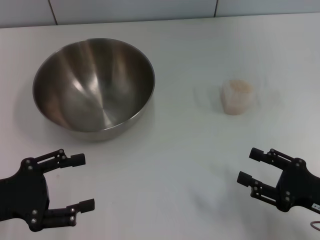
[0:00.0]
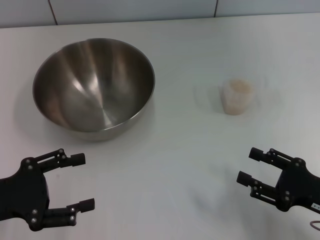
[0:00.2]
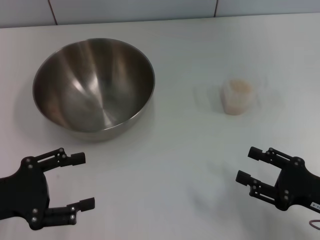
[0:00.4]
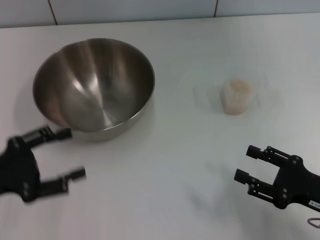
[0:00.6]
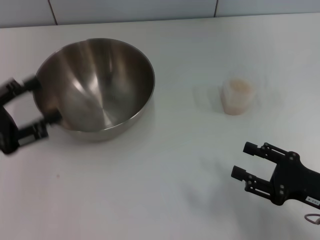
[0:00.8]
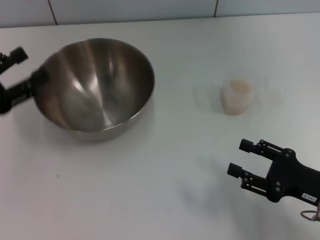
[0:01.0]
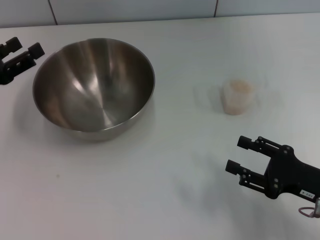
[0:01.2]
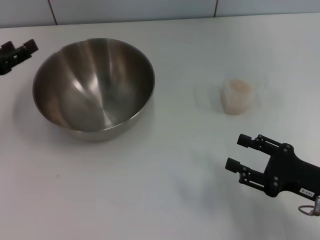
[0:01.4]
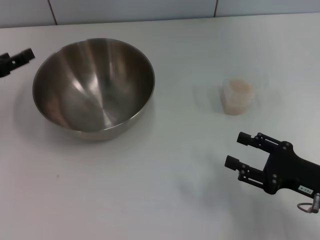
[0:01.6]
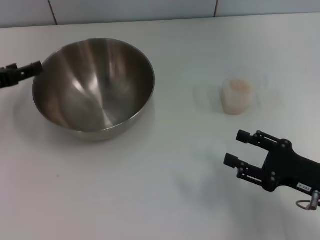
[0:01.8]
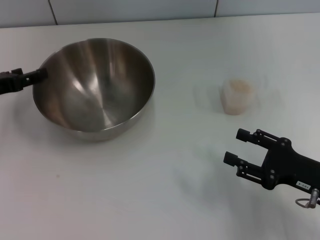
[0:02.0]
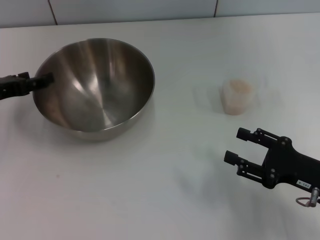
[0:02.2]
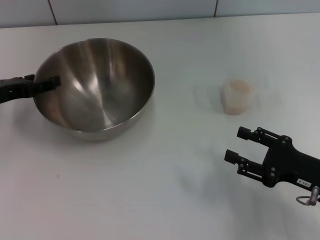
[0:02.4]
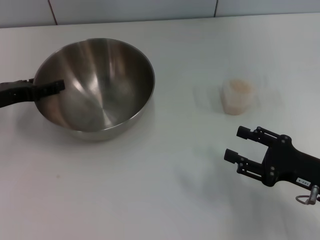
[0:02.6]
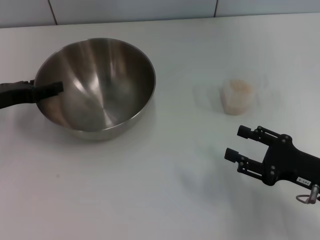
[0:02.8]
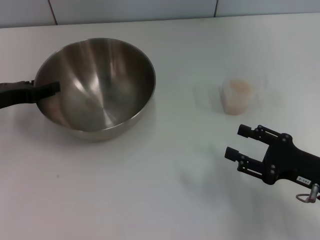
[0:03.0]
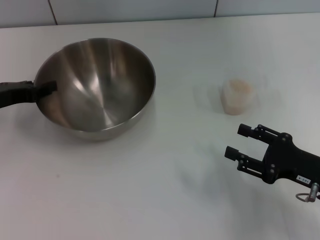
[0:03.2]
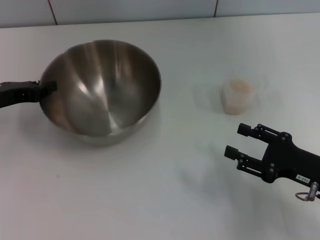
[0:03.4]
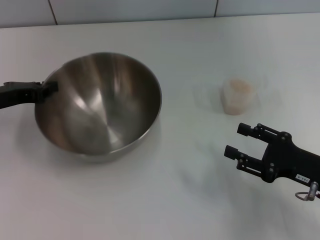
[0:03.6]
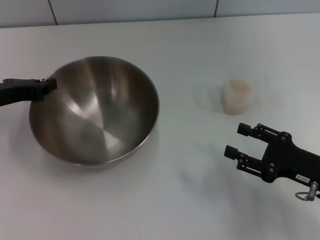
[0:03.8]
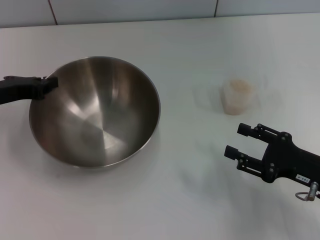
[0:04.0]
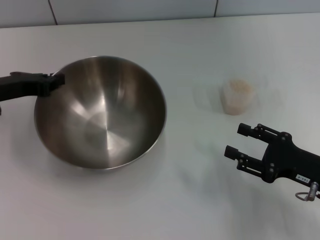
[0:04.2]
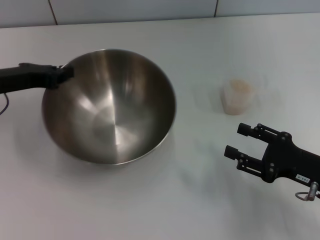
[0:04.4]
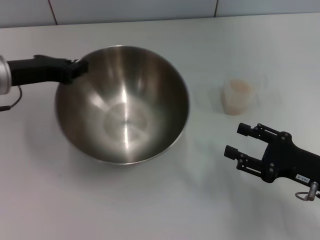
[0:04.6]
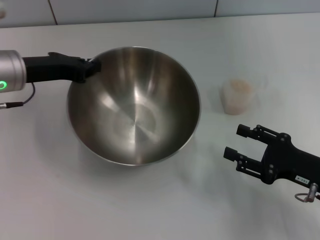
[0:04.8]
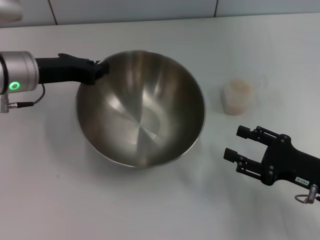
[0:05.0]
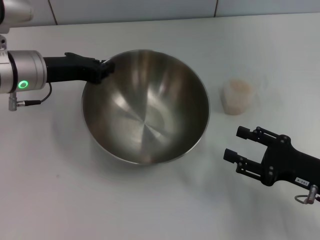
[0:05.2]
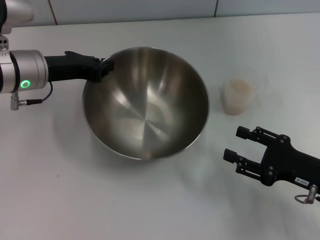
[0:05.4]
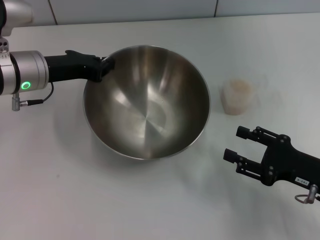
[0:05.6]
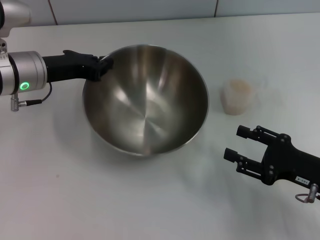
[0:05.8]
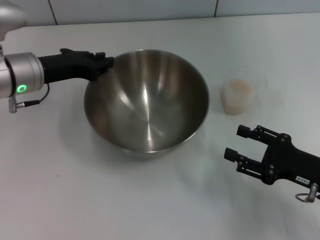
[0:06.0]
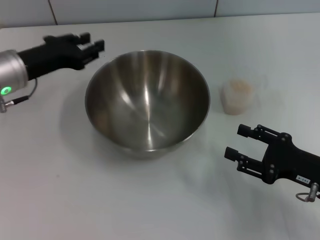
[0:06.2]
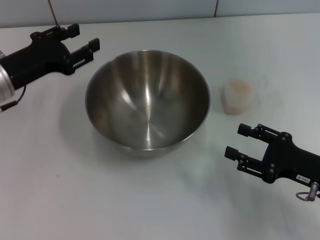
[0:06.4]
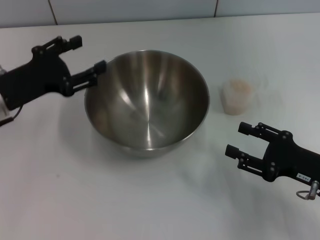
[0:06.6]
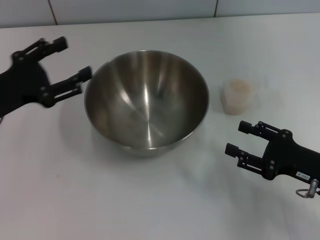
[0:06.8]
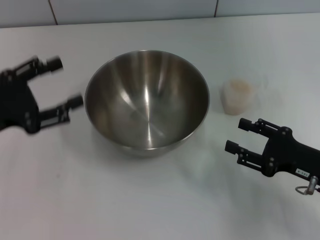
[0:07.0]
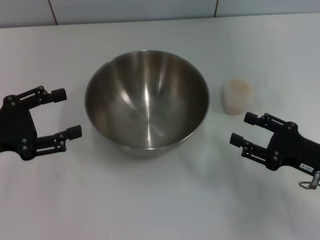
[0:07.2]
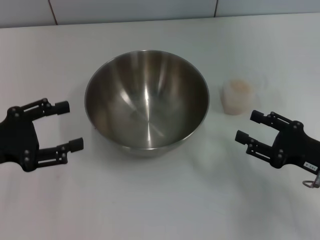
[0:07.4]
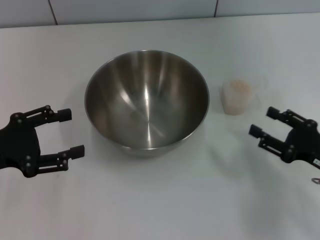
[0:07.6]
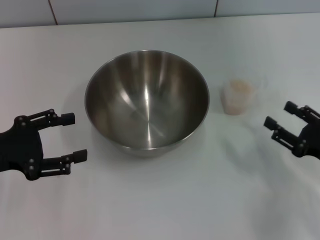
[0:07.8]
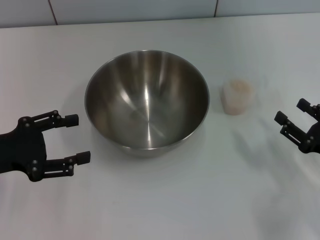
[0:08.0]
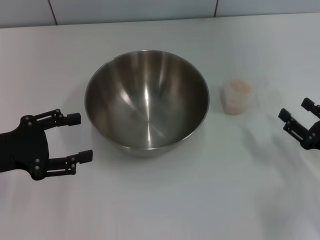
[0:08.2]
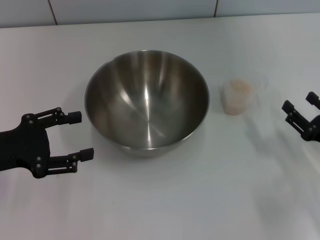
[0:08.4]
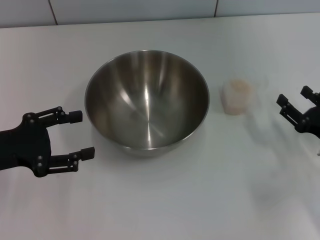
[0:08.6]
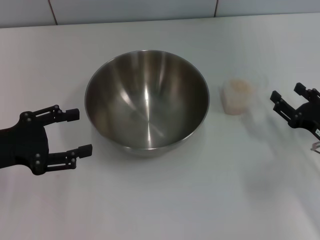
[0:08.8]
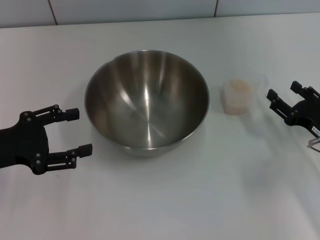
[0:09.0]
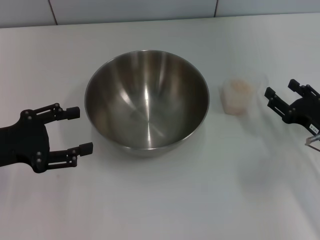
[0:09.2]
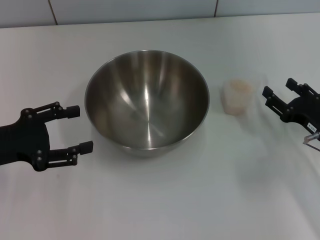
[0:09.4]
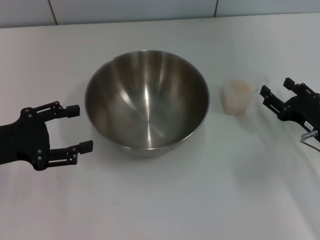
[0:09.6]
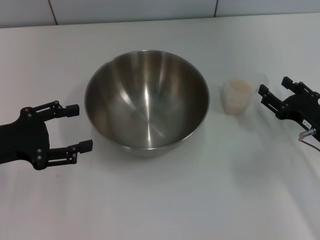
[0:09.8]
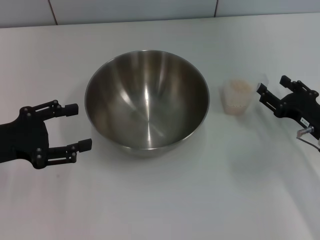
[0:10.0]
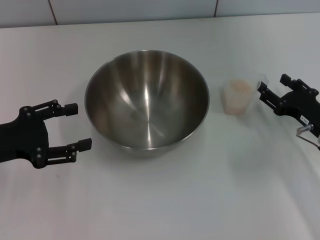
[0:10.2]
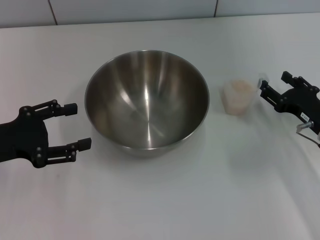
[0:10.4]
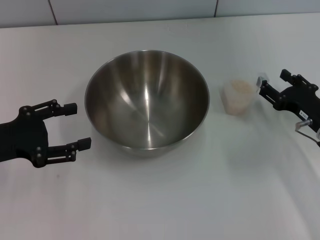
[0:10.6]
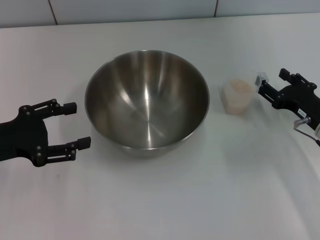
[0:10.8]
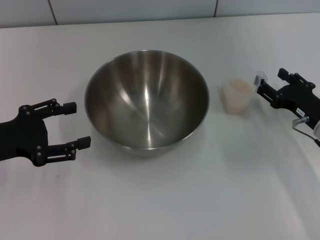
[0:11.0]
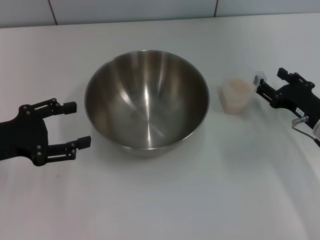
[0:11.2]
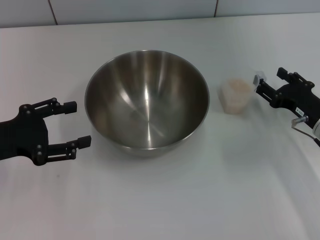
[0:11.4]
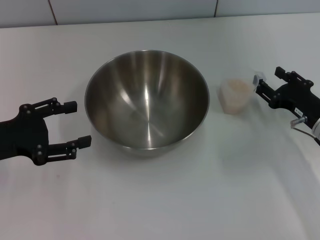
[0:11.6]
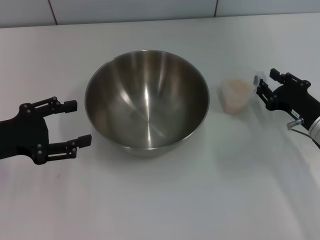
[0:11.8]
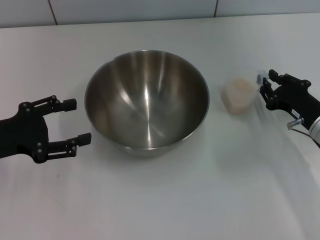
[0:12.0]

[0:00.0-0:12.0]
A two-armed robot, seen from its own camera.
Task of the whole recording: Place the bowl in the middle of the table with one hand and pour the rice from the grain cup into it with the other hand.
Step, 0:00.0 to 0:04.2: Pick up the bowl with the left gripper.
Step, 0:04.4 to 0:06.0: Place the bowl in the center of view with the left gripper.
0:00.0 to 0:01.6: The left gripper shifts about 15 cm forward.
0:01.6 to 0:03.0: The grippers stay close to where they were, moving slightly.
0:03.0 to 0:04.4: The left gripper closes.
0:04.4 to 0:06.0: The left gripper travels to the right by some 5 cm.
0:06.0 to 0:07.6: The left gripper shifts approximately 15 cm backward and to the left, and opens its fingers.
0:09.0 to 0:12.0: There are only small adjustments of the grippers.

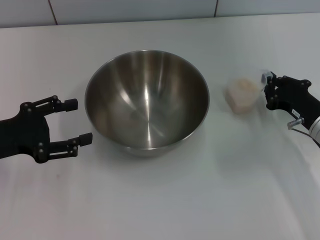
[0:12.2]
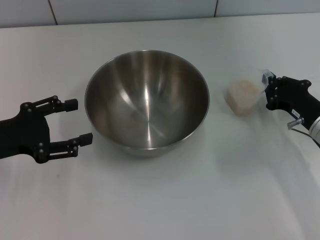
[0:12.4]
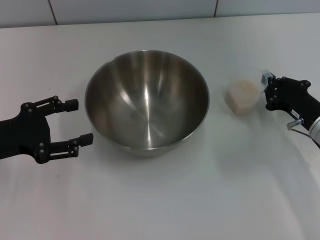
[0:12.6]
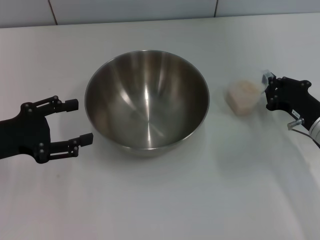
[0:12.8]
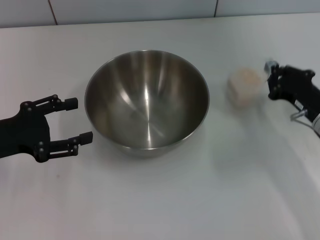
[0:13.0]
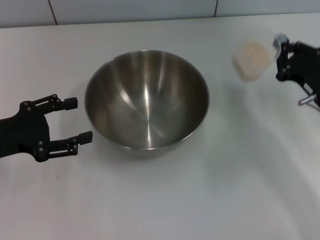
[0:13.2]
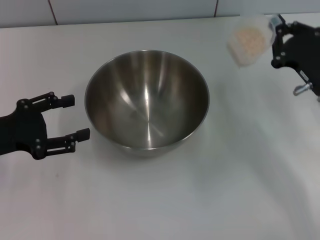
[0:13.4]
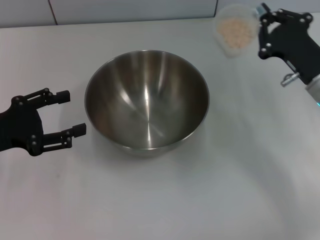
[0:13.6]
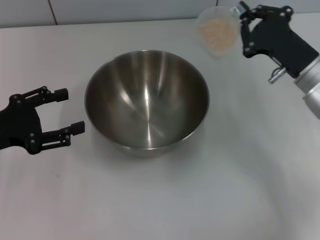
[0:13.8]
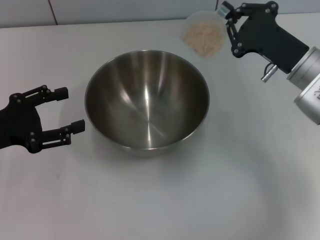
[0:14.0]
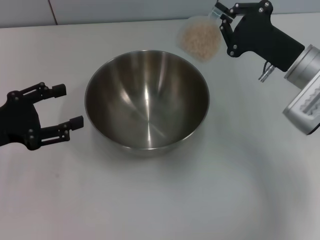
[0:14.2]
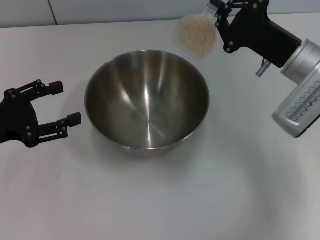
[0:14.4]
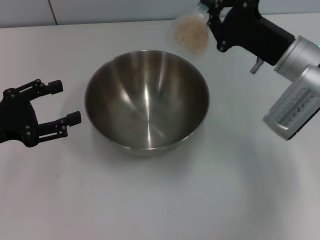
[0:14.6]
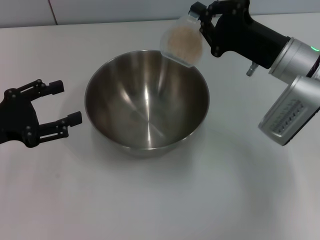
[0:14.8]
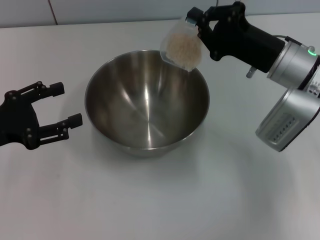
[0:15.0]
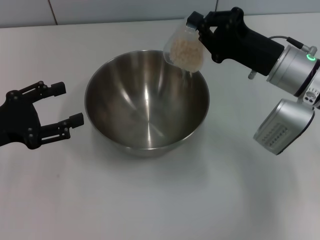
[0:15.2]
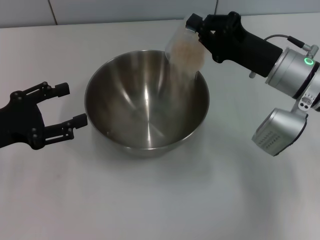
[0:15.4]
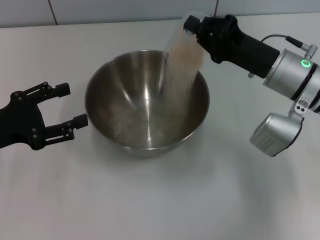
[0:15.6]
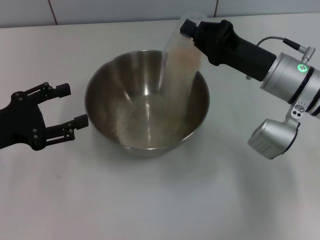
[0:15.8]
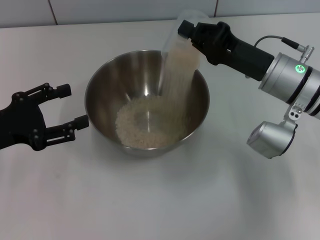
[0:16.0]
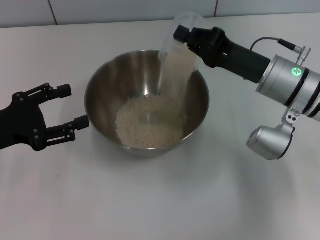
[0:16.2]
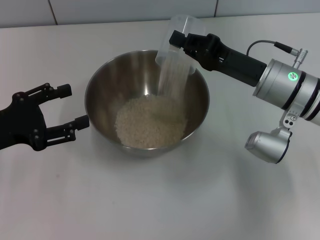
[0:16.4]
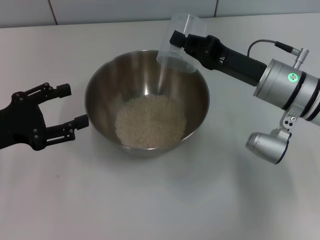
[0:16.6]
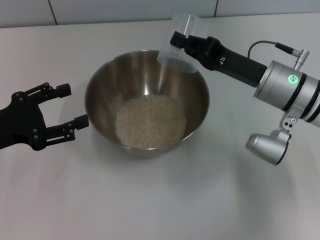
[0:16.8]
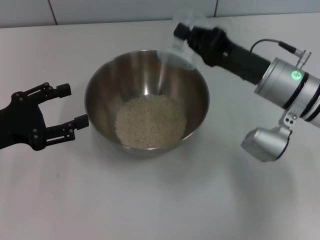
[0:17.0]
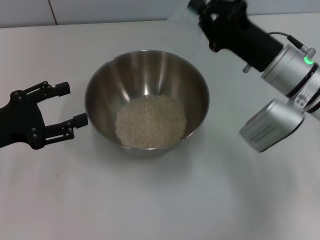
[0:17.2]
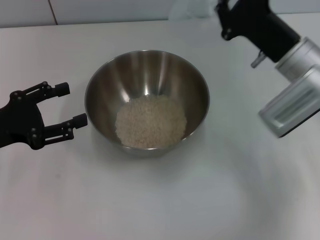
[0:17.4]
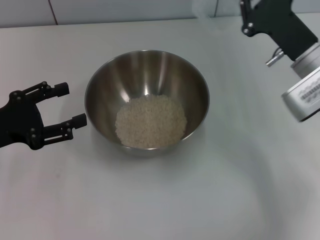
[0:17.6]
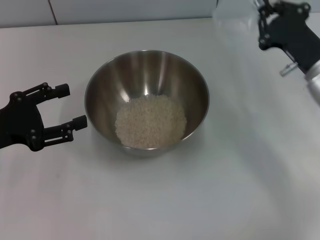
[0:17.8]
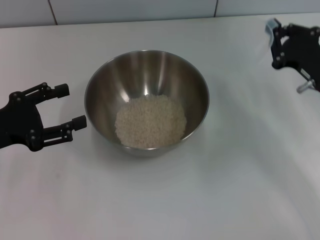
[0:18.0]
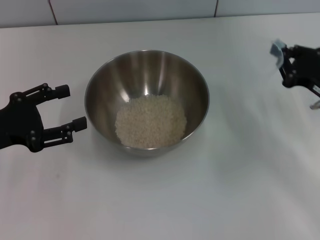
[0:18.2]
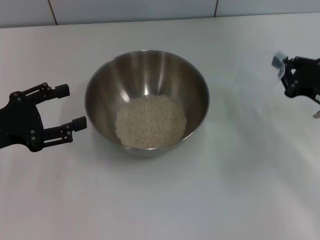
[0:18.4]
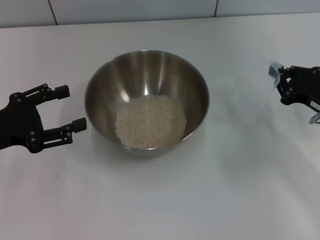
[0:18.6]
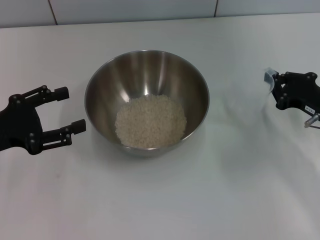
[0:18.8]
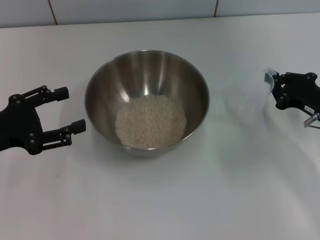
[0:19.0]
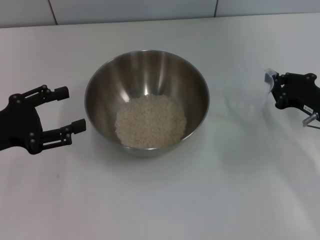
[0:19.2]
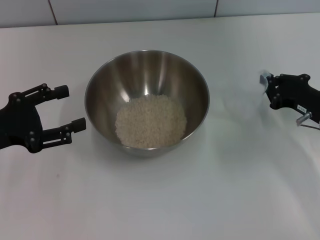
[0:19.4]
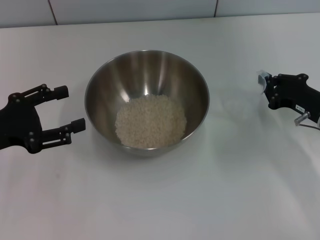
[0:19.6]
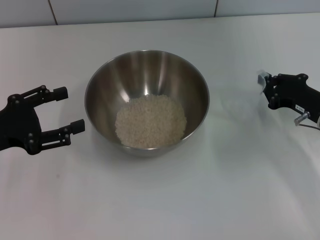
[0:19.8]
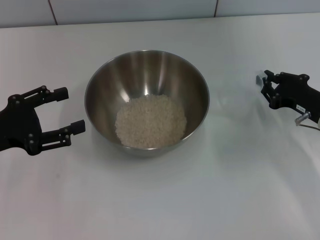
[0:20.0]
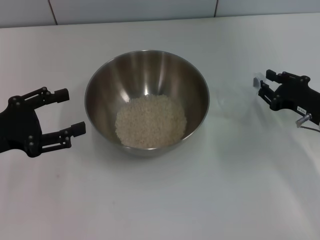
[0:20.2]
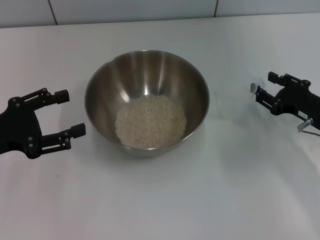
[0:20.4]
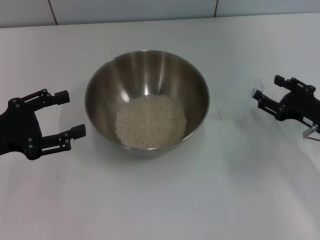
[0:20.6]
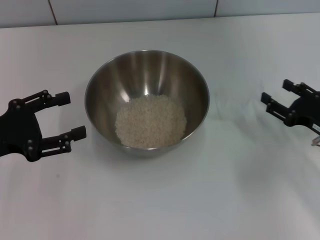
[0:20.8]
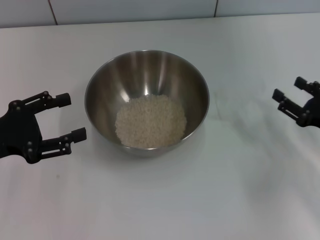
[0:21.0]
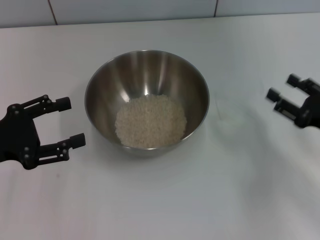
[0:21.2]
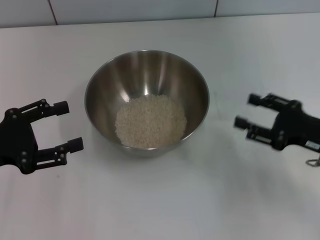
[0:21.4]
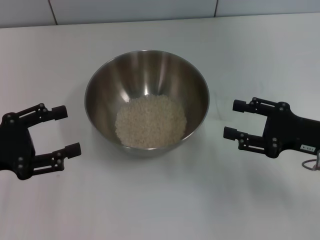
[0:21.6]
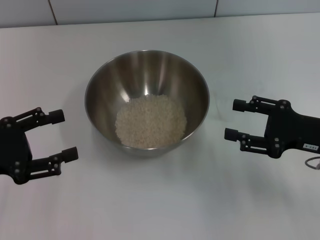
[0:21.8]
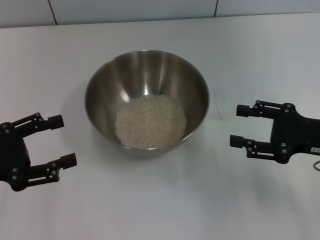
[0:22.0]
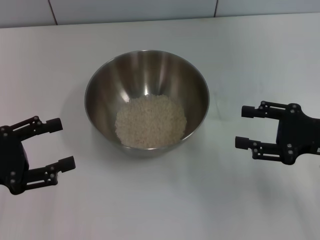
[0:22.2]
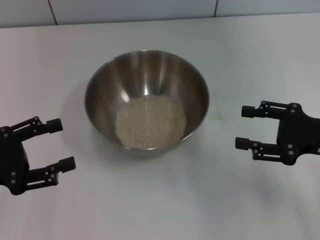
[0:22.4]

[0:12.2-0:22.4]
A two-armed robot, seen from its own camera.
Task of the whole recording: Place the bowl in the middle of the table with one hand and pour the rice from the grain cup into it with the other hand.
Step, 0:13.4 to 0:17.0: Pour the rice from the cup into the bowl with the right gripper.
Step, 0:17.2 to 0:20.8: Place the cup on the table with the right gripper.
0:12.2 to 0:13.6: The right gripper travels upward by some 5 cm, and closes.
0:13.6 to 0:15.2: The right gripper shifts by approximately 5 cm.
0:16.6 to 0:18.0: The right gripper heads to the right, covering some 10 cm.
0:19.4 to 0:21.0: The right gripper goes some 5 cm backward, and opens.
0:21.0 to 0:22.4: The right gripper shifts approximately 5 cm upward.
